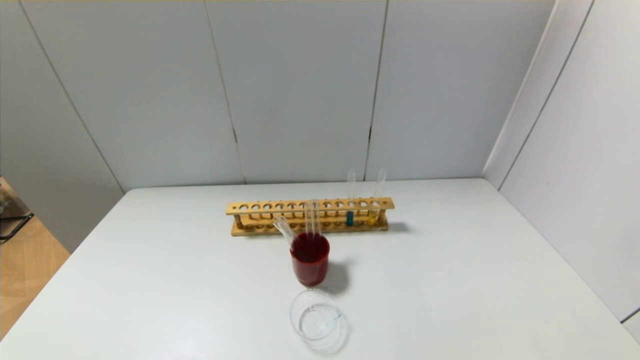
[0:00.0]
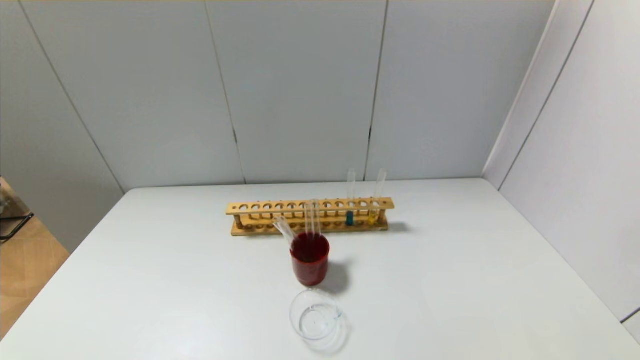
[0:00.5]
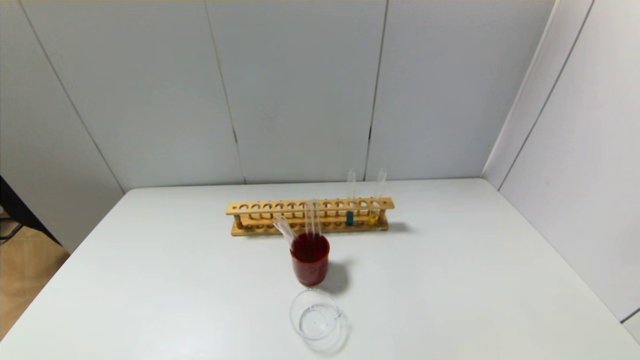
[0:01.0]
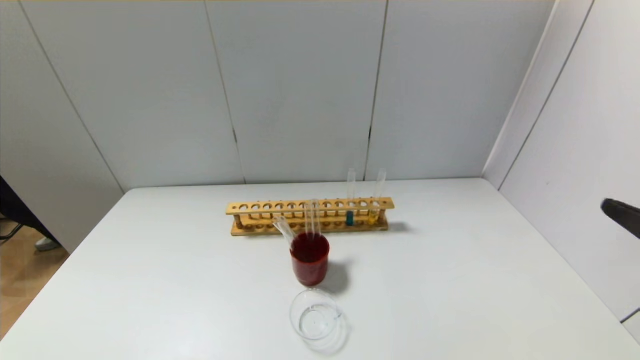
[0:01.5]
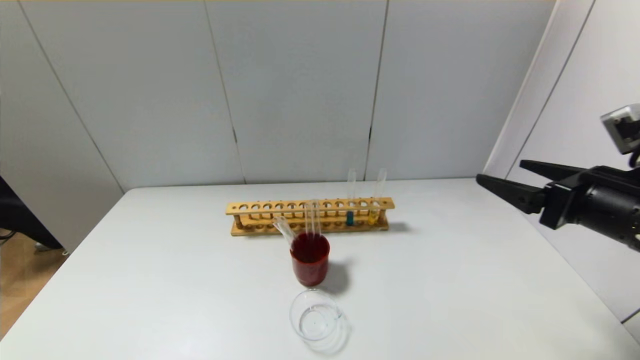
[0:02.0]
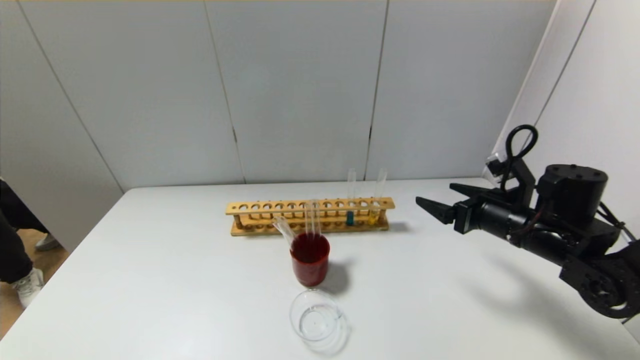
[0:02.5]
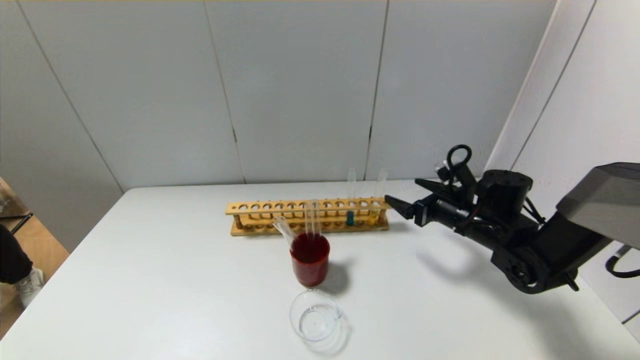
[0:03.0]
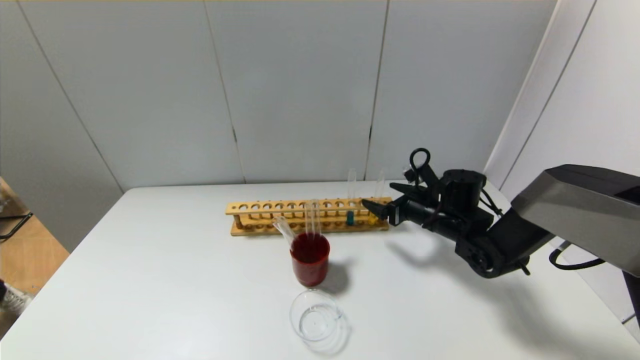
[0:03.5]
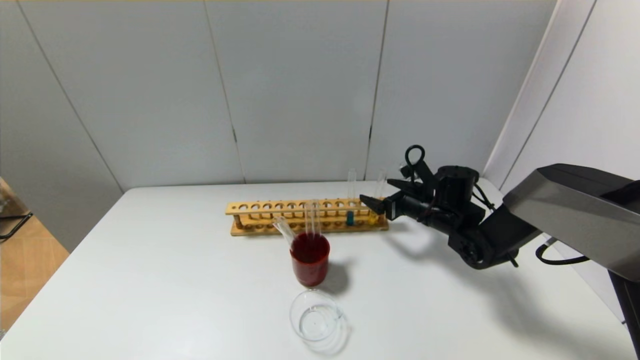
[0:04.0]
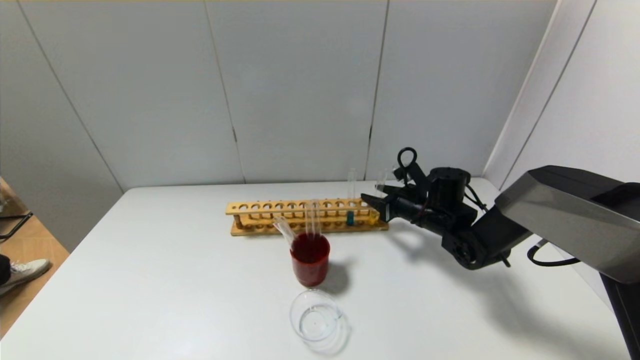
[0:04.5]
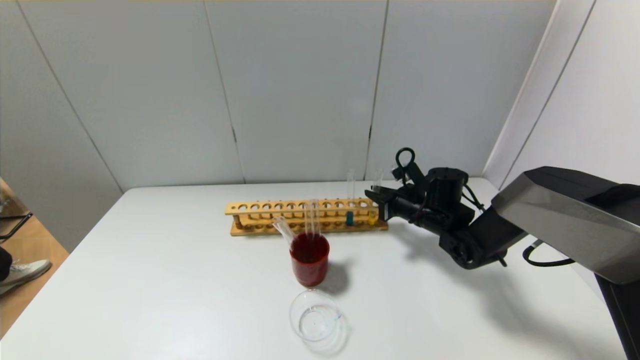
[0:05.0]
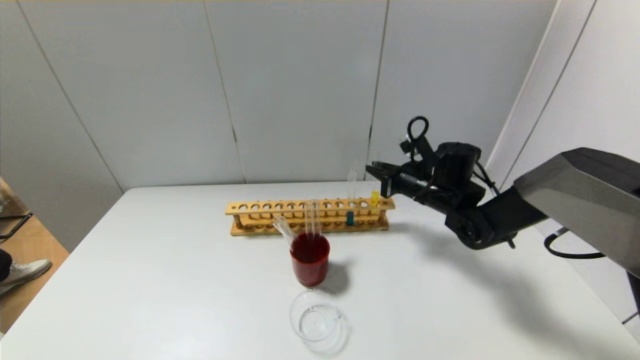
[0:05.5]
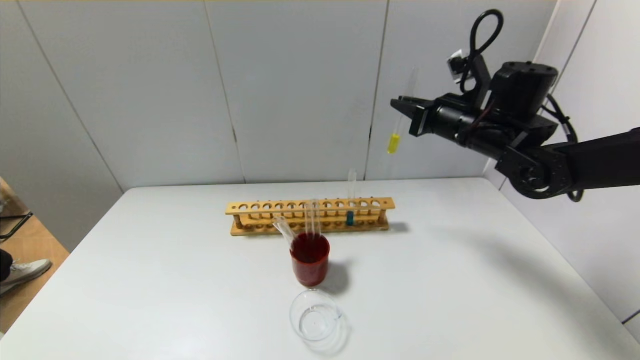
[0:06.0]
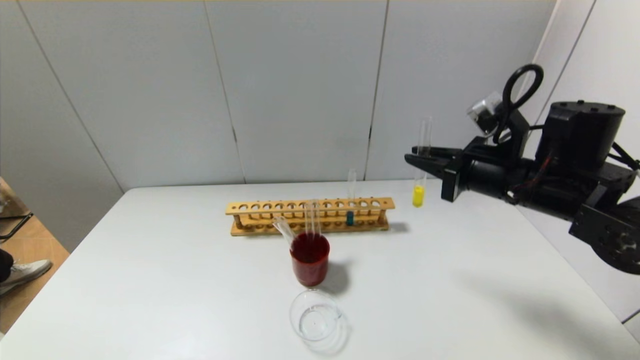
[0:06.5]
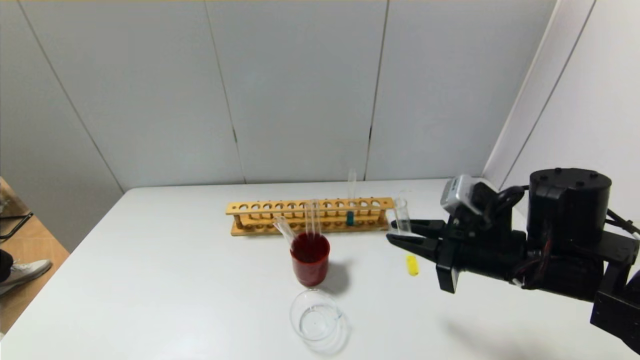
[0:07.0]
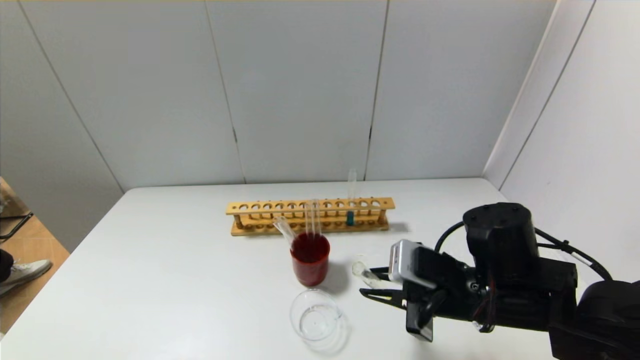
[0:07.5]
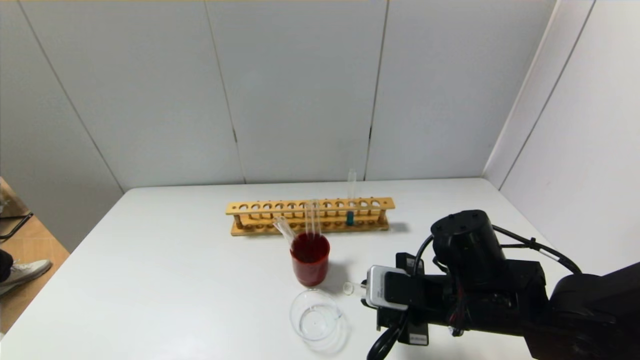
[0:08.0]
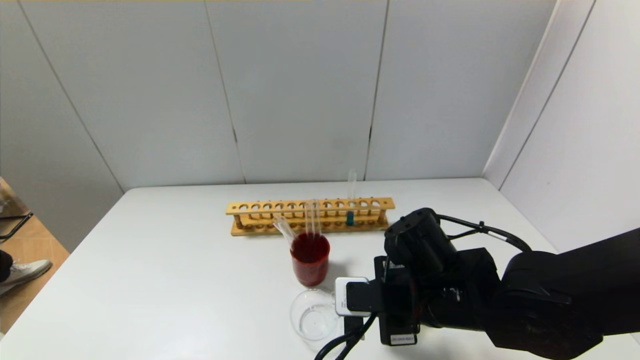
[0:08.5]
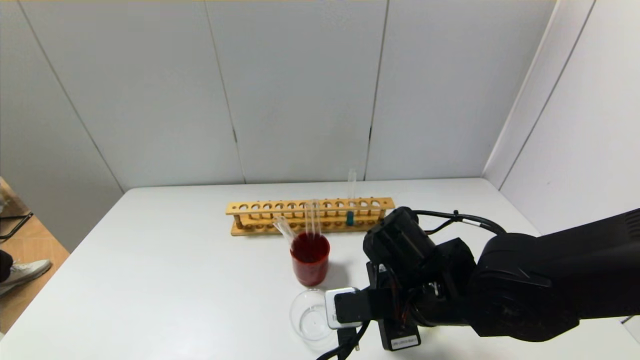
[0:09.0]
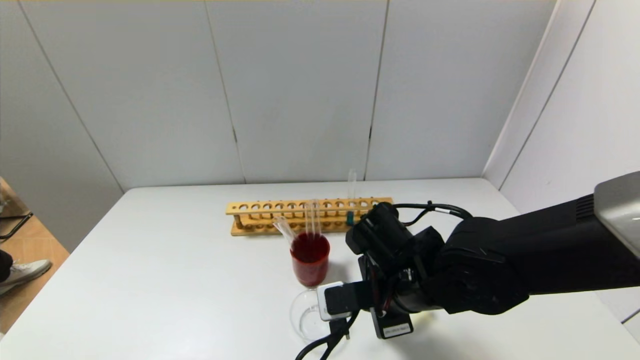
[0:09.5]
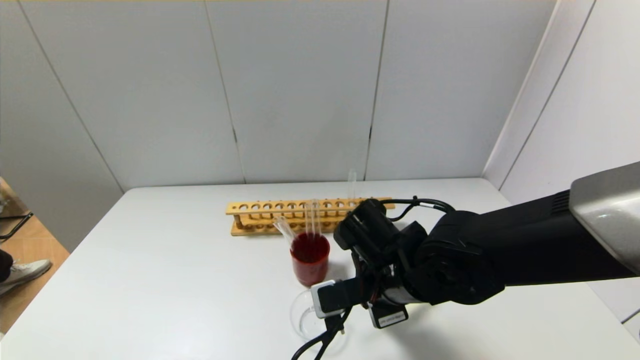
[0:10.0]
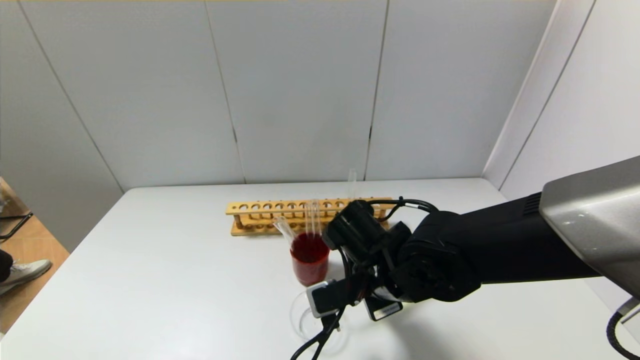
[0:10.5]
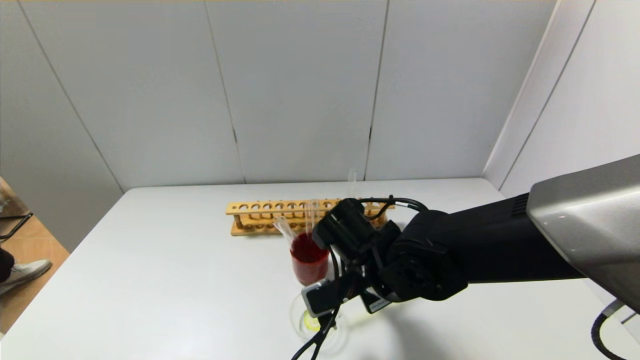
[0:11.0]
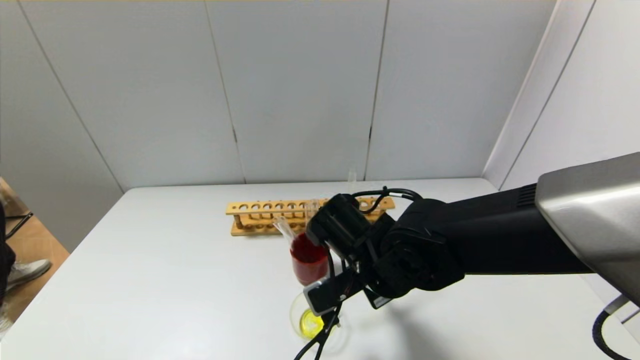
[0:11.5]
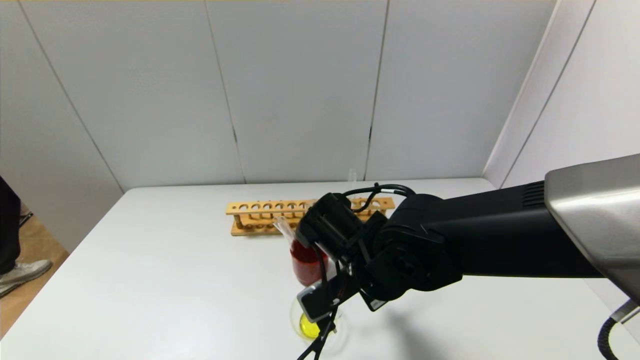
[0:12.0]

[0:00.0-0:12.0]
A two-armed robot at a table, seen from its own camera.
Step, 0:00.0 to 0:04.5: Grasp the yellow reagent with the right gripper.
0:00.0 to 0:02.0: The right gripper is displaced forward and upward by about 25 cm.
0:02.0 to 0:04.0: The right gripper travels forward, downward and to the left by about 25 cm.
0:04.0 to 0:06.0: The right gripper heads upward, covering about 20 cm, and closes its fingers.
0:06.0 to 0:08.0: The right gripper heads backward and downward, covering approximately 20 cm.
0:08.0 to 0:10.0: The right gripper heads to the left, covering roughly 5 cm.

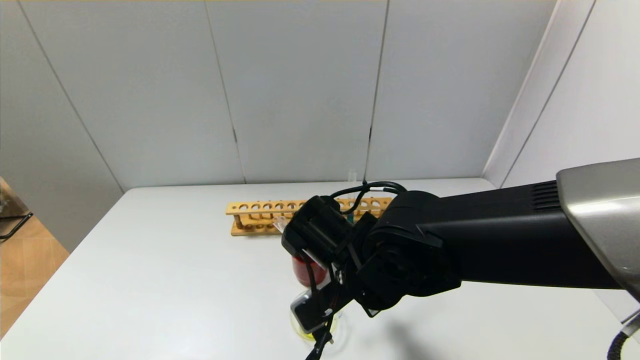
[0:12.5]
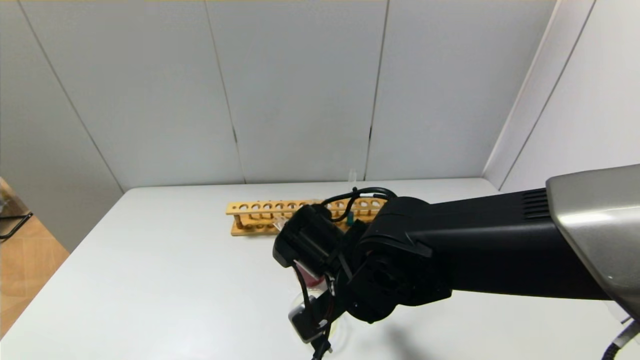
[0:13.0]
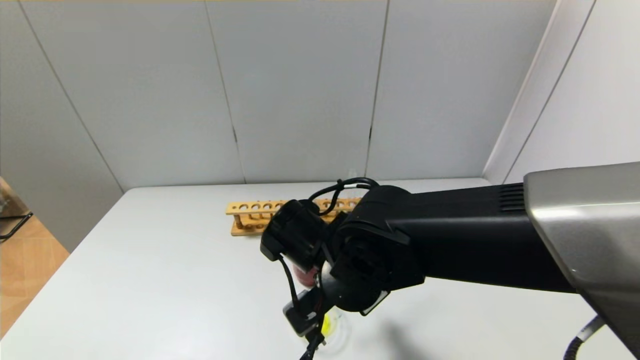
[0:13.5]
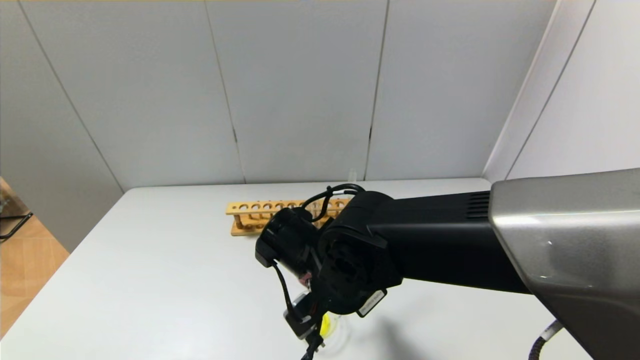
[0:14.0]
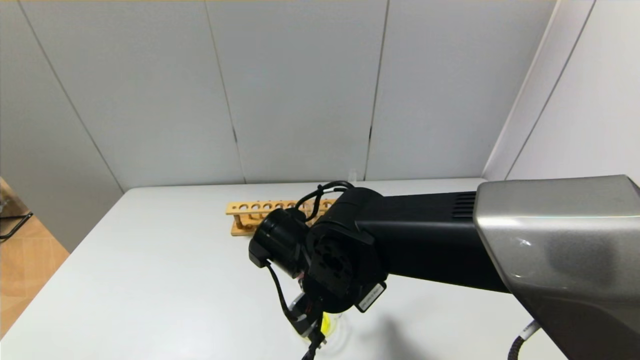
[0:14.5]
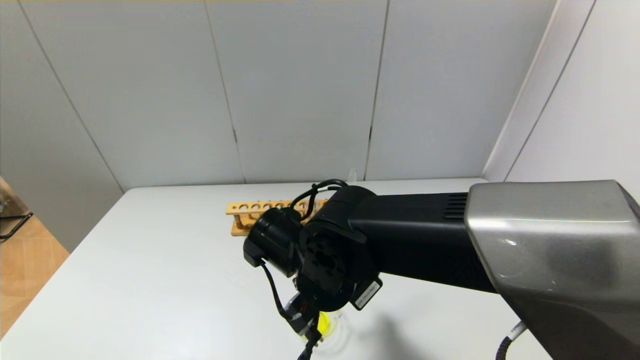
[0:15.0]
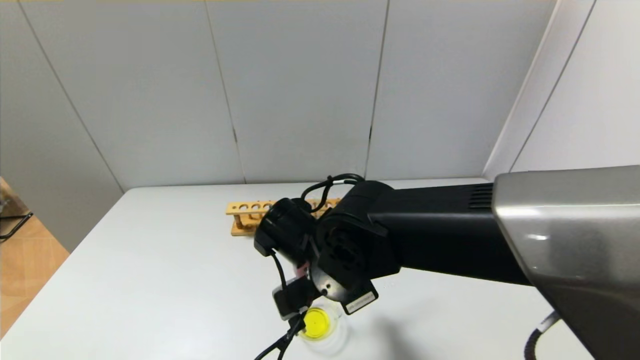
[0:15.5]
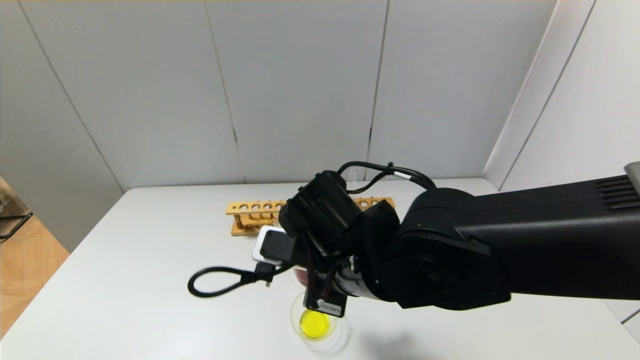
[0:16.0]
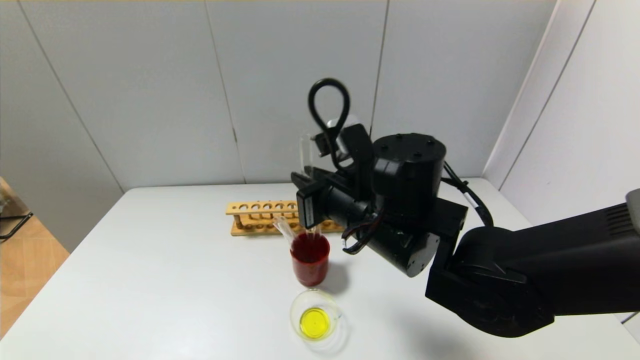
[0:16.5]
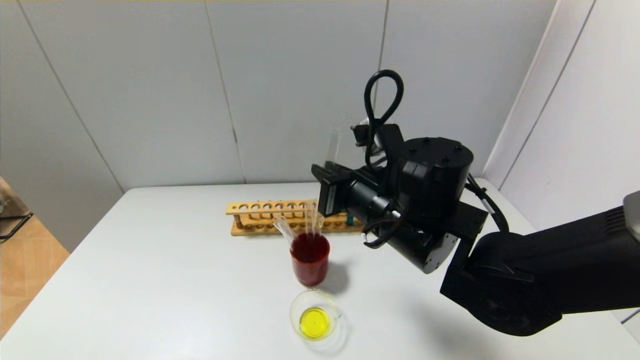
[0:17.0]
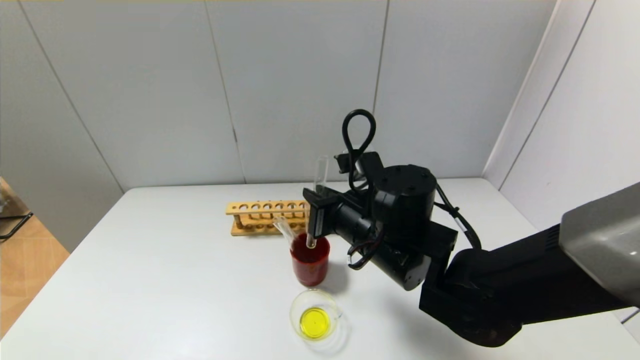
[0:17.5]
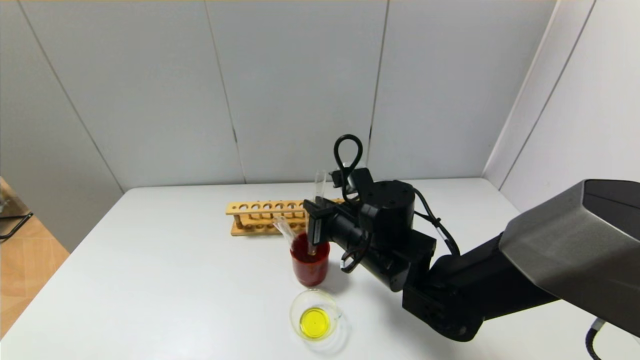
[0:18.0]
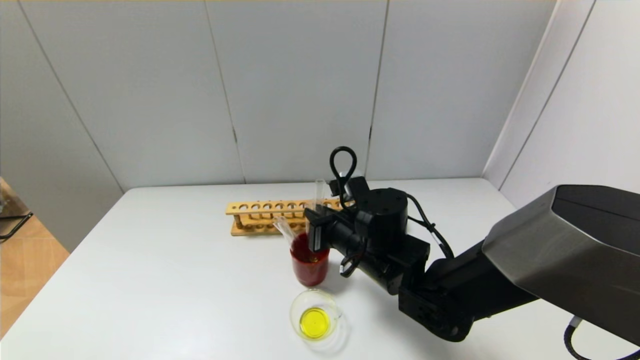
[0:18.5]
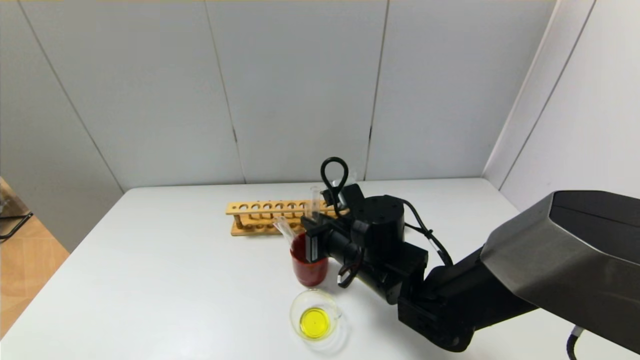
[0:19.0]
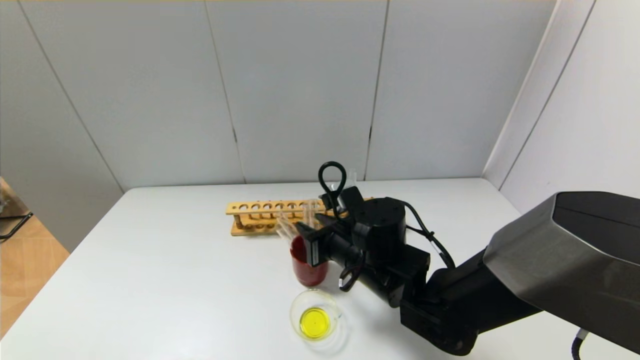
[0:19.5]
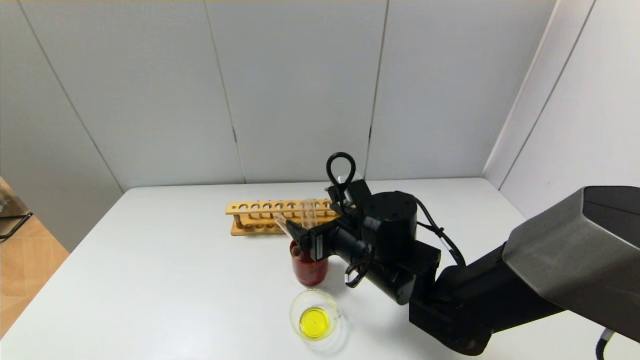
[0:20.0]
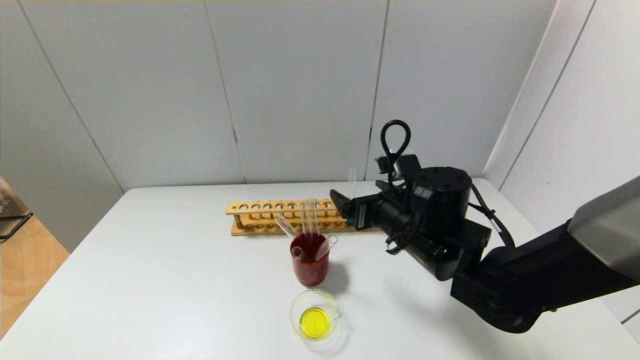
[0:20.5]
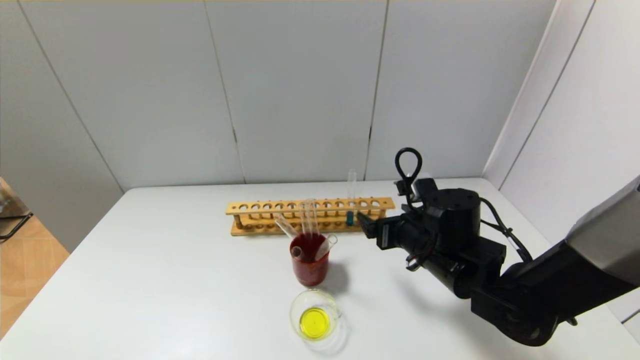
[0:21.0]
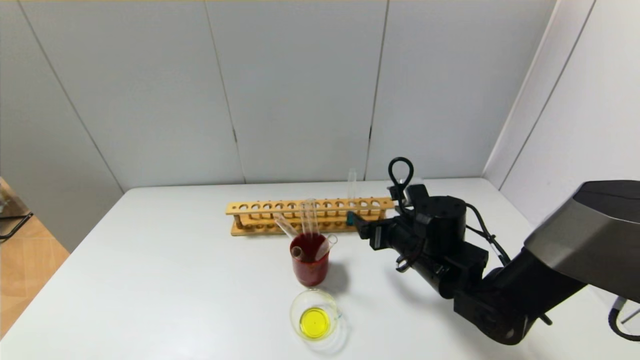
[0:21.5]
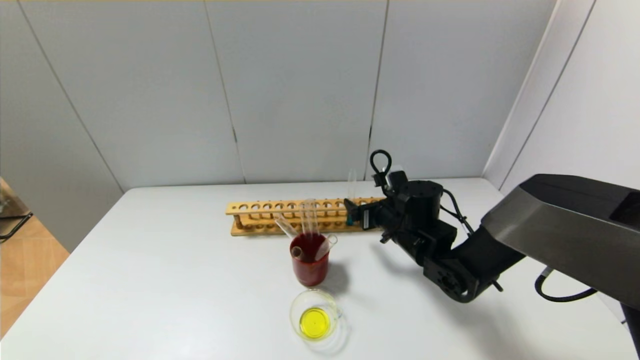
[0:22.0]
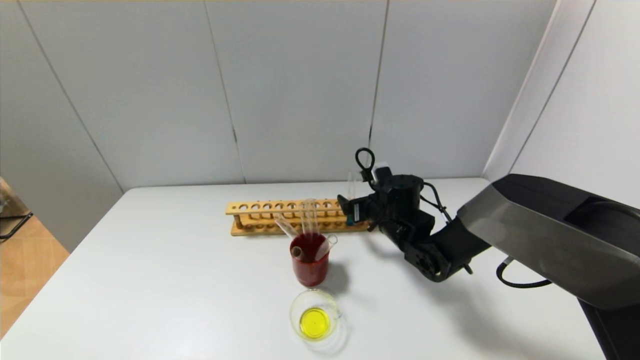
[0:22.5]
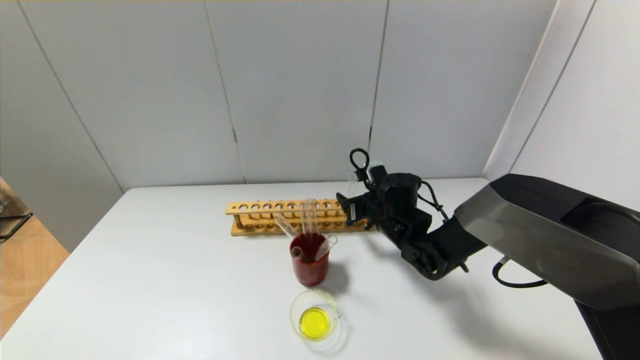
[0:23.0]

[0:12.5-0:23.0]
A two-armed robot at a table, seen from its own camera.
Step, 0:12.5 to 0:15.0: Pour the yellow reagent into the graduated cylinder with the right gripper.
Step, 0:15.5 to 0:19.5: Place the test tube into the brown cup with the right gripper.
0:12.5 to 0:14.5: There are only small adjustments of the grippers.
0:14.5 to 0:16.5: The right gripper travels upward by roughly 5 cm.
0:16.5 to 0:19.0: The right gripper shifts roughly 10 cm downward.
0:19.0 to 0:21.0: The right gripper travels to the right by roughly 10 cm, and opens up.
0:21.0 to 0:23.0: The right gripper shifts some 10 cm forward.
